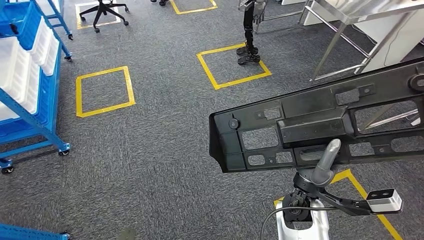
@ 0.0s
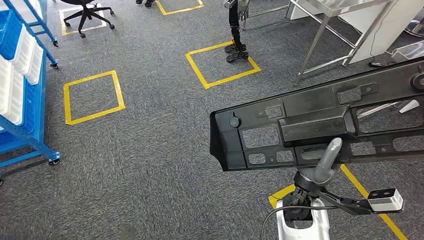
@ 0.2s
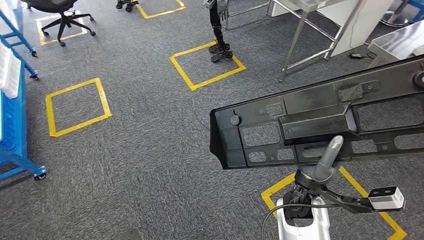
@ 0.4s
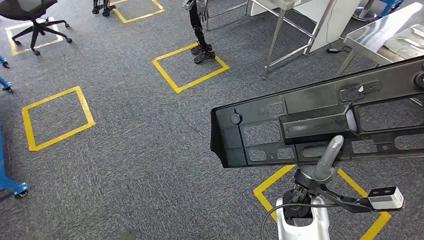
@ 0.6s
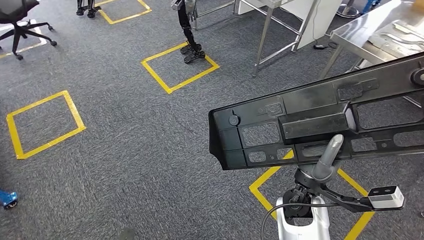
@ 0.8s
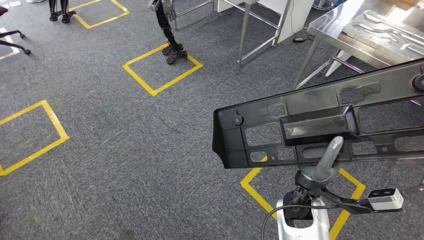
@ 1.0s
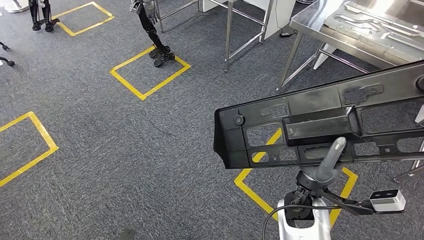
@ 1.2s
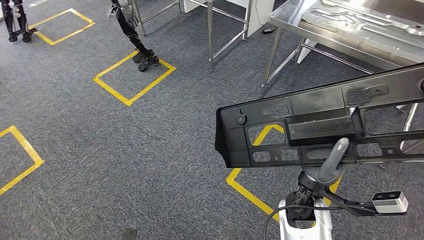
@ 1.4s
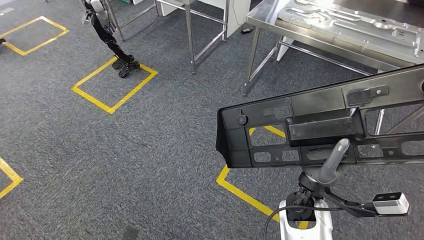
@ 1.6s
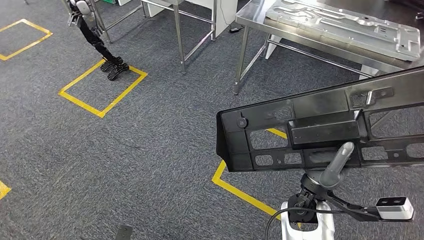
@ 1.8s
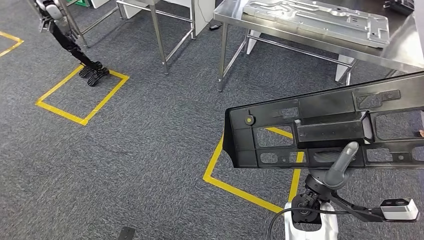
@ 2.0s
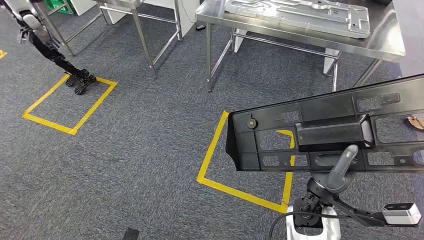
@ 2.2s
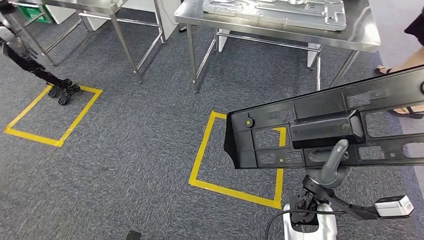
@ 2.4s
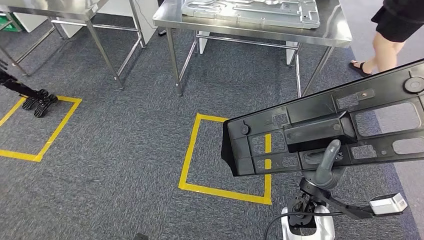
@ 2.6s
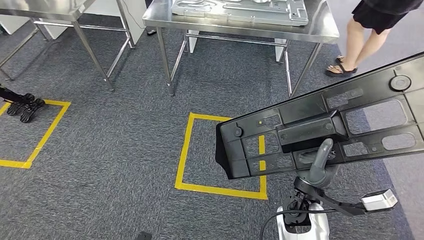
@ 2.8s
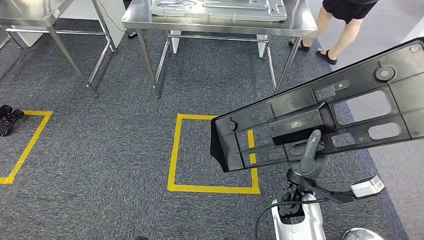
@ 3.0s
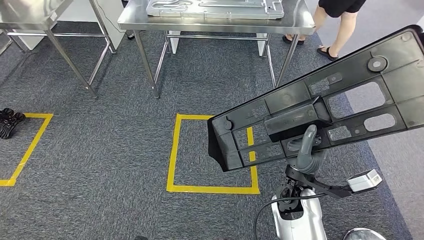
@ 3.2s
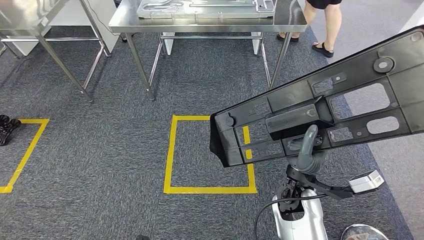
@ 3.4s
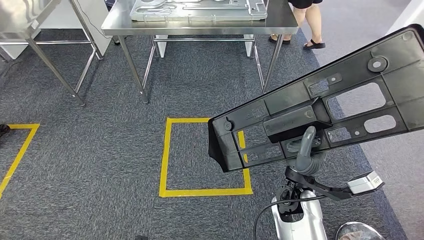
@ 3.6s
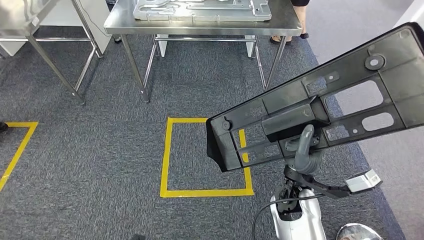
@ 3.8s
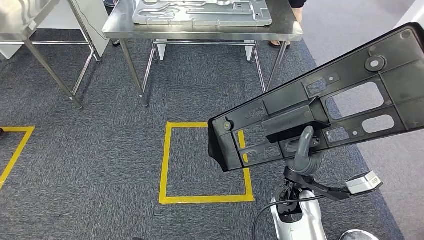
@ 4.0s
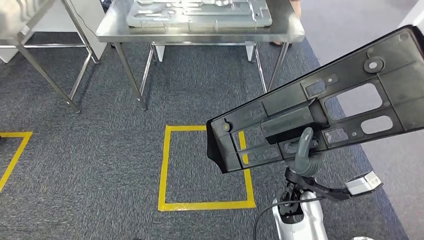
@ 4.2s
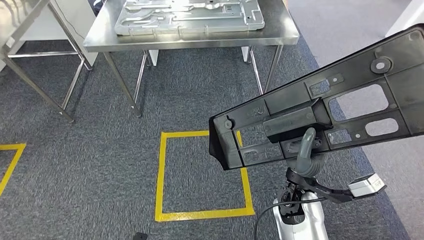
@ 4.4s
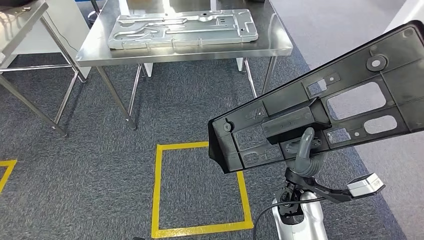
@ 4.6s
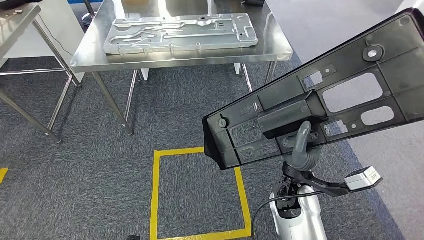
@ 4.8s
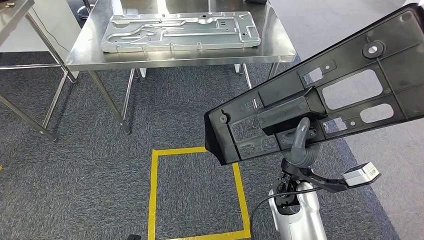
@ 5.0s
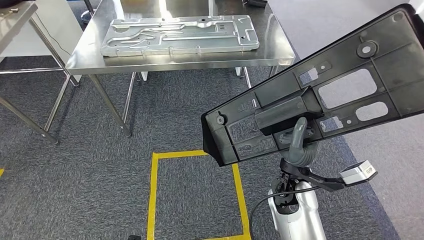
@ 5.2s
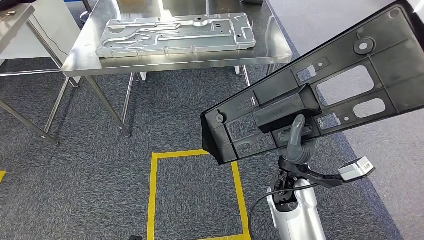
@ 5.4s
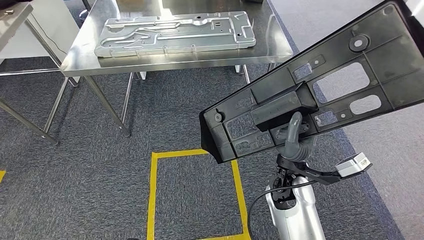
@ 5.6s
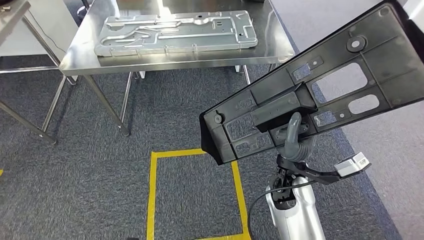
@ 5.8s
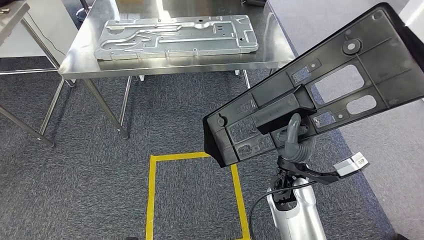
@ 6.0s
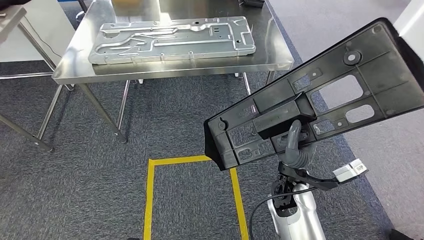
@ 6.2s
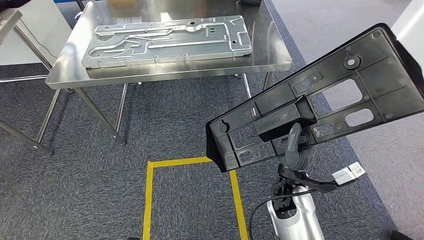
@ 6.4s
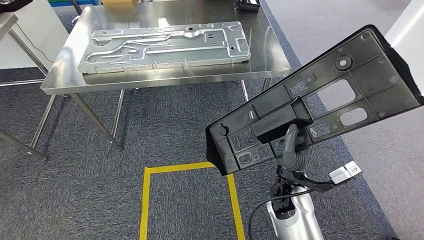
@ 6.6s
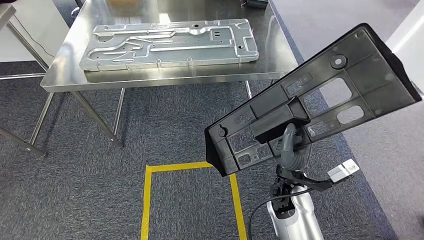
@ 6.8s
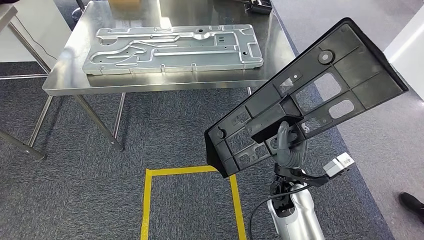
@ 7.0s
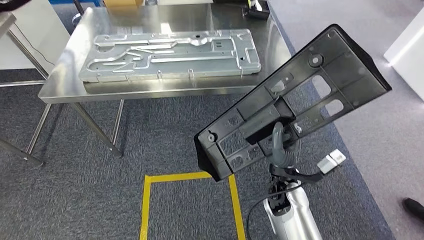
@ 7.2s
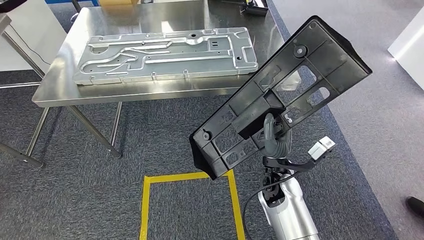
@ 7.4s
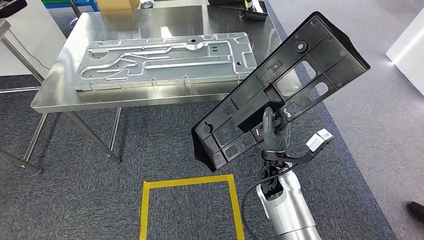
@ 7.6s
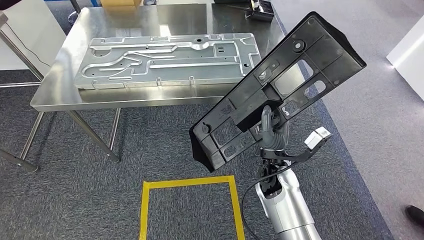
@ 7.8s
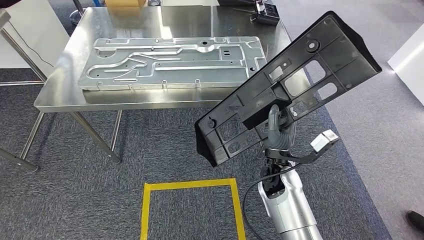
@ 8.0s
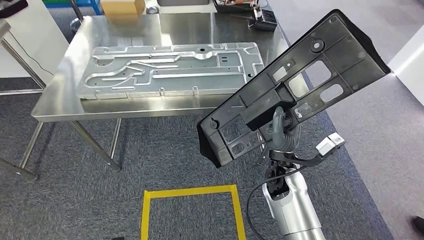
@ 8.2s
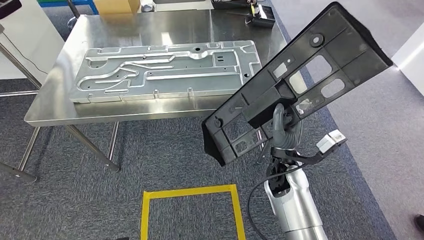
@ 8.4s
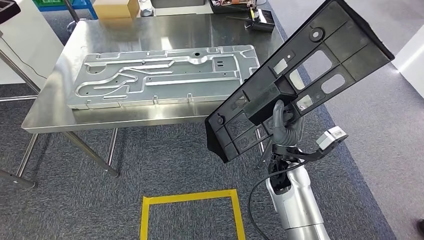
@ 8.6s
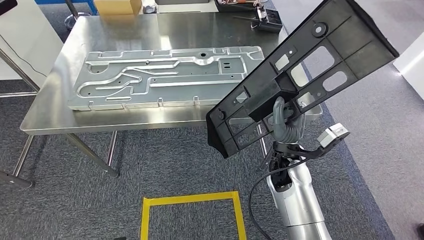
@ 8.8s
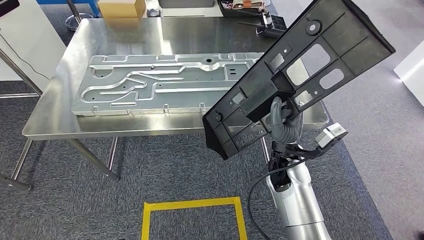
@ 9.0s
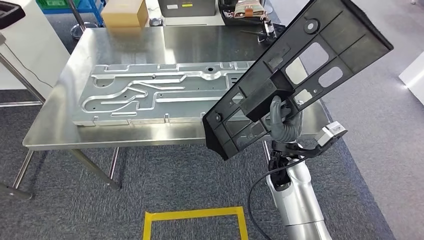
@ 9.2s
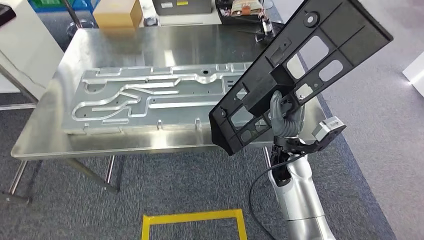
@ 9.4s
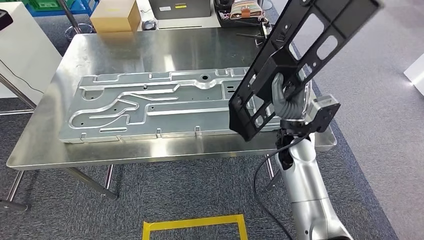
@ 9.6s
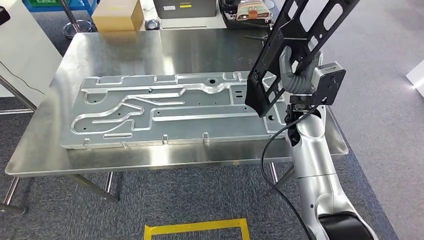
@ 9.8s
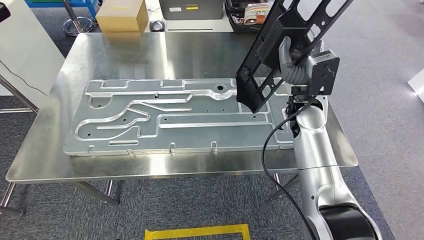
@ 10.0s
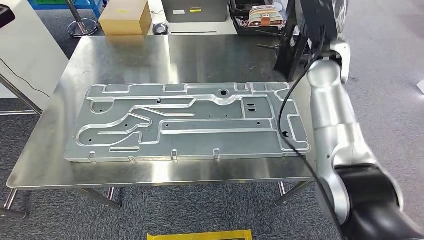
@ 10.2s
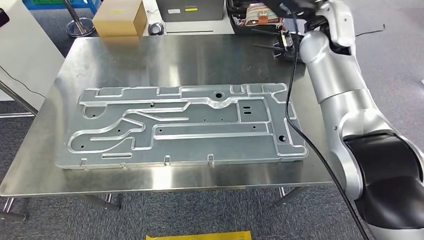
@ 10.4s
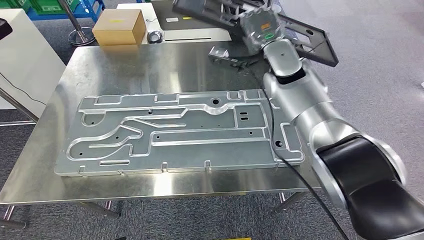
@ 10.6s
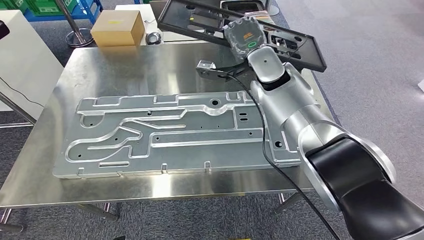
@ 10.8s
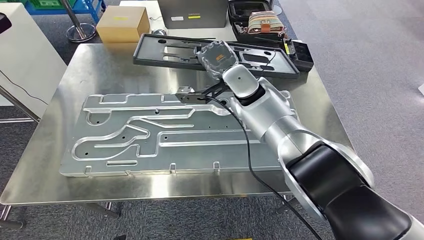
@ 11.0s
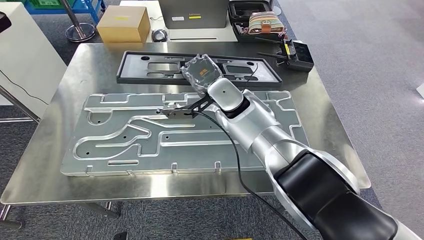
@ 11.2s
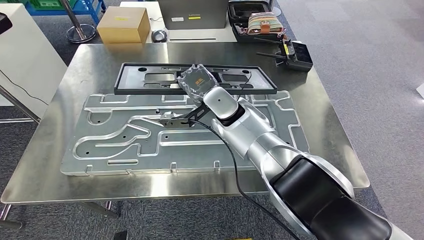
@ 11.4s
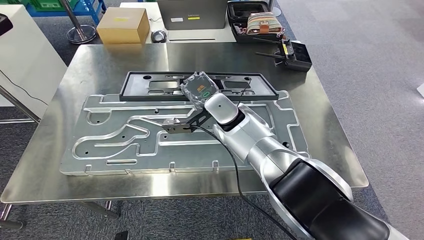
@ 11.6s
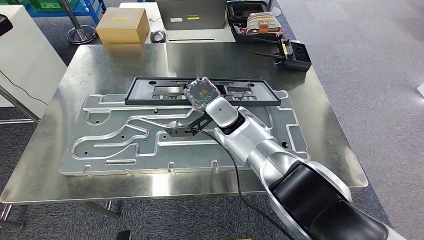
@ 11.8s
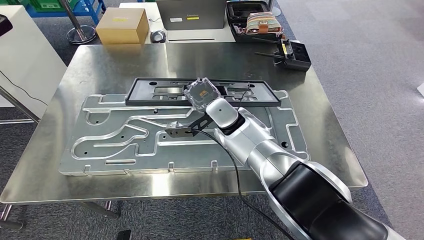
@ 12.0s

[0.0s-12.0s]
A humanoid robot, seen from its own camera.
Step, 0.0s to 10.8s: Move the large material to the front of the workbench.

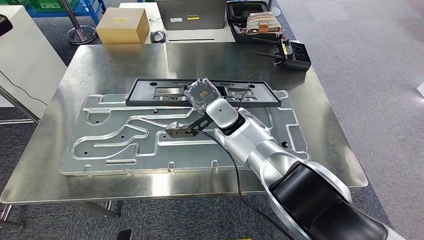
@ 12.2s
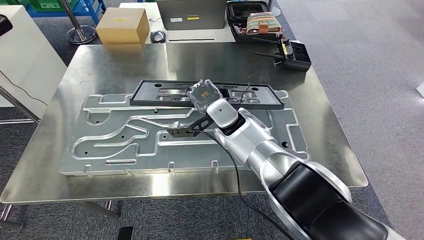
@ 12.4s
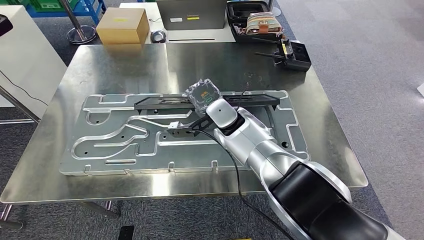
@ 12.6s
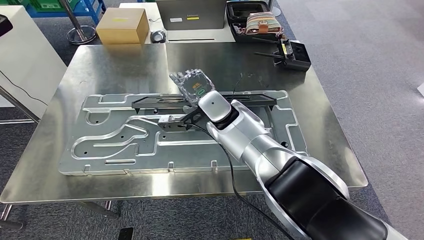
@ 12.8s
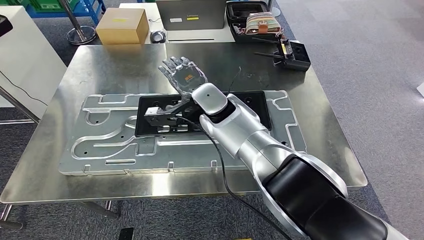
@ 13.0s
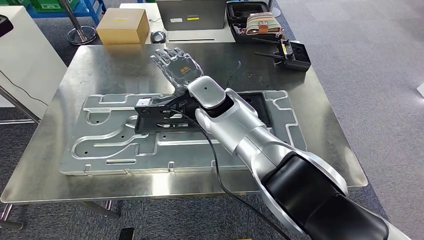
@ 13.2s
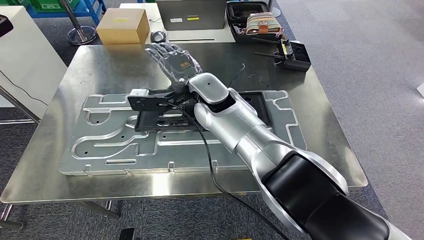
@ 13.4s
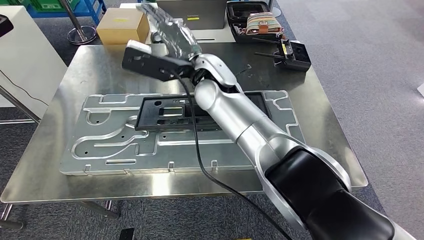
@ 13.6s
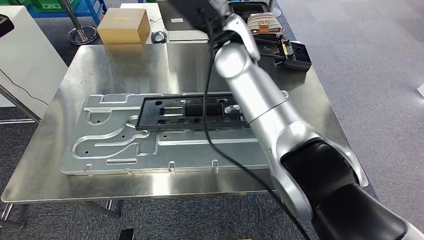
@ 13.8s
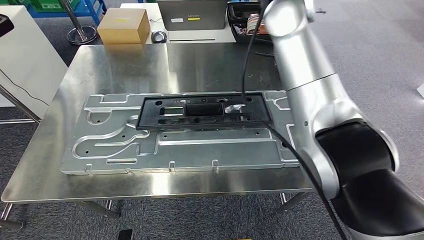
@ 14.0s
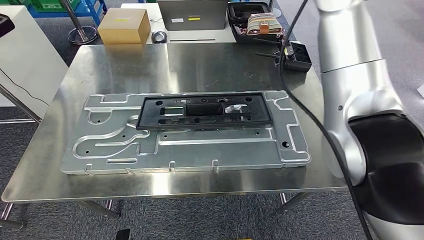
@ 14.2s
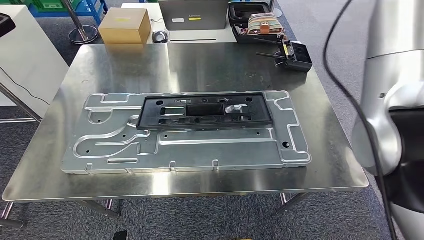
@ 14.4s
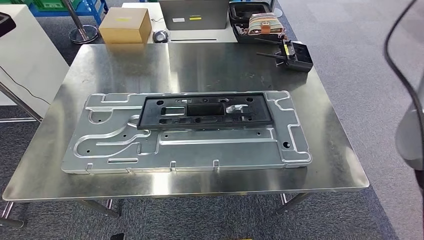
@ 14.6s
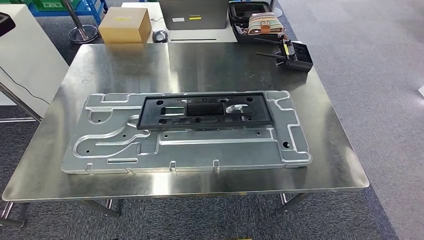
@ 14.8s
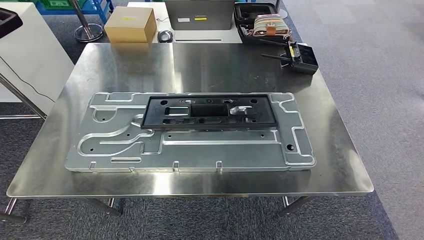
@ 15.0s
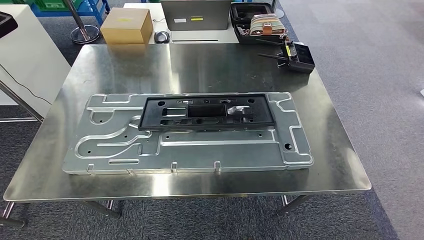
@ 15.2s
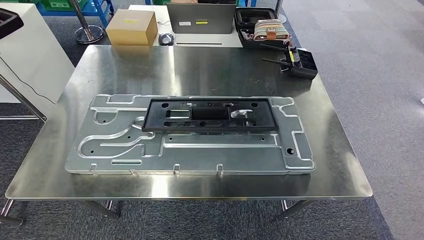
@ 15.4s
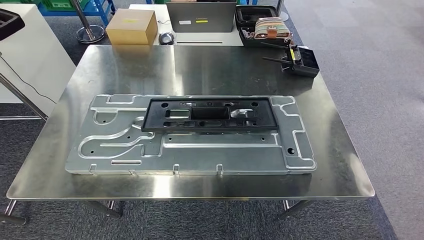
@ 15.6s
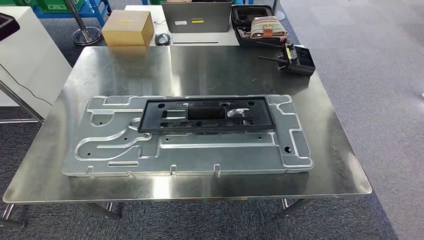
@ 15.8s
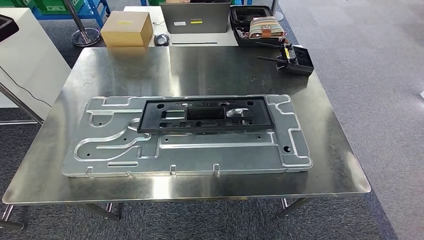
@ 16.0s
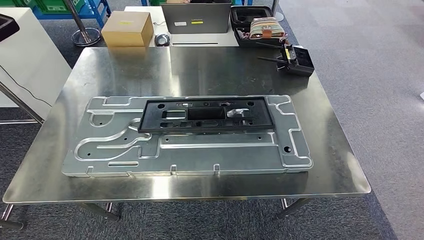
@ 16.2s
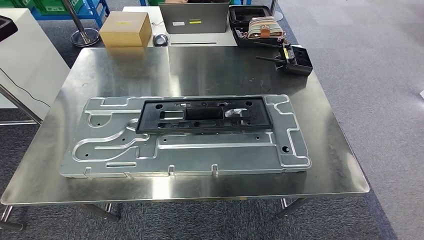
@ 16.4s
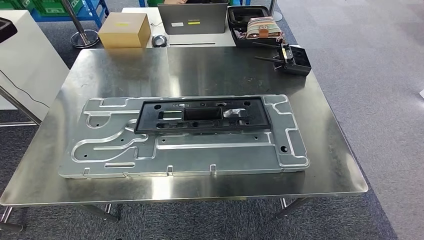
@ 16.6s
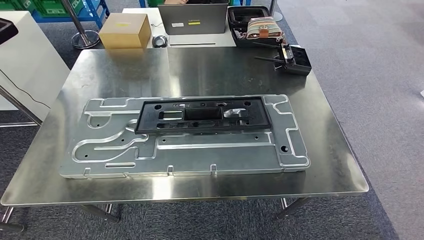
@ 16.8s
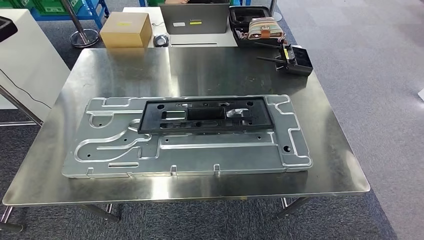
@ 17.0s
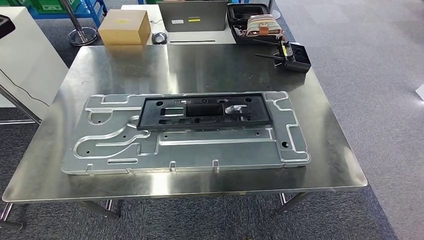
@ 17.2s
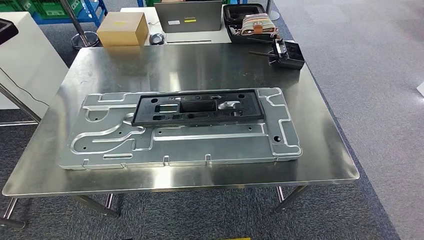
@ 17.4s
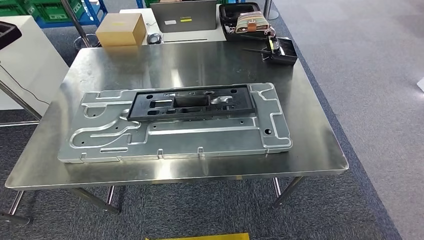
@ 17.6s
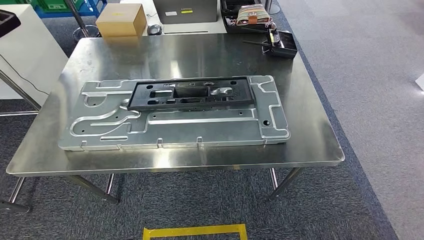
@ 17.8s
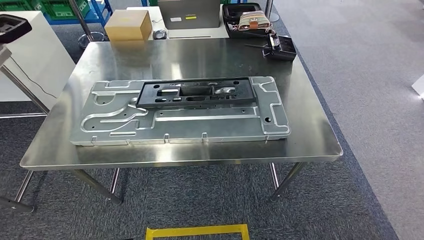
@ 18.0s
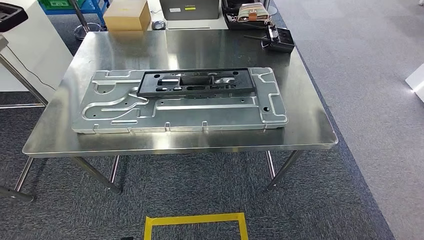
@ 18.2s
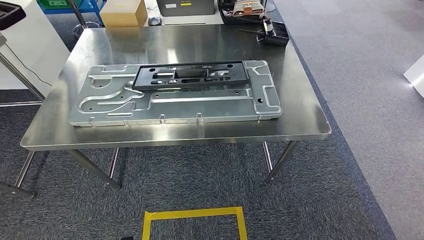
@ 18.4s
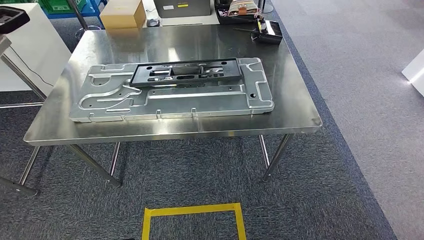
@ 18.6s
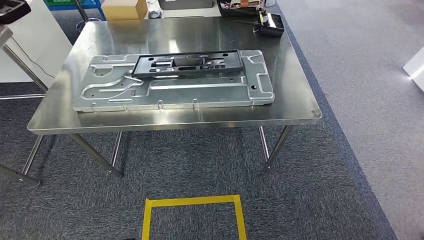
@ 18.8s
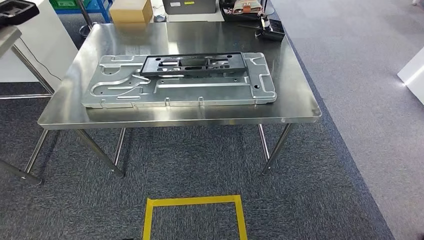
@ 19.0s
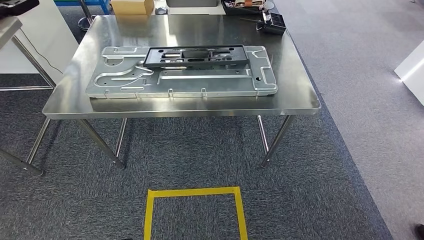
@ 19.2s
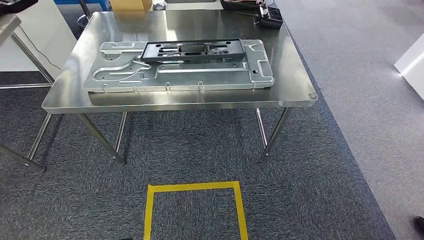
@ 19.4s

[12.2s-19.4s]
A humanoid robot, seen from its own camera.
Step, 12.4s to 16.2s: Insert the large material into the corresponding hole on the workbench.
12.2s to 13.6s: The right hand goes some 15 cm upward.
